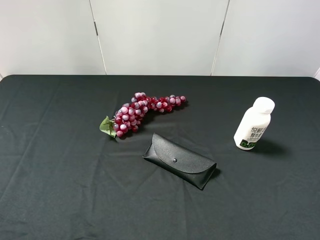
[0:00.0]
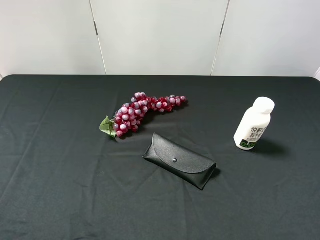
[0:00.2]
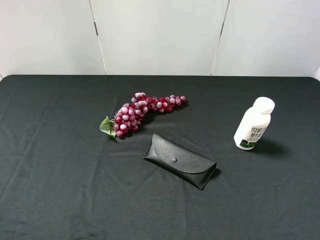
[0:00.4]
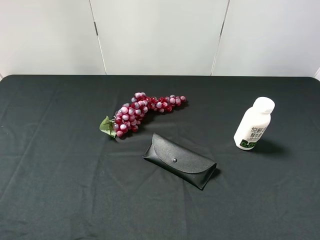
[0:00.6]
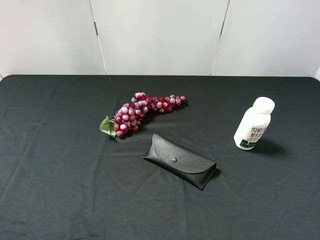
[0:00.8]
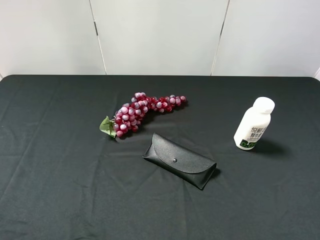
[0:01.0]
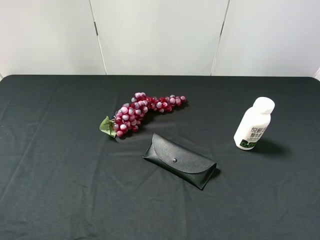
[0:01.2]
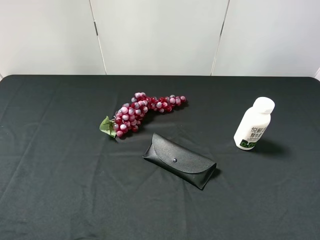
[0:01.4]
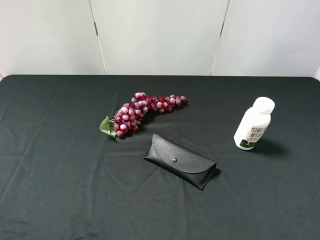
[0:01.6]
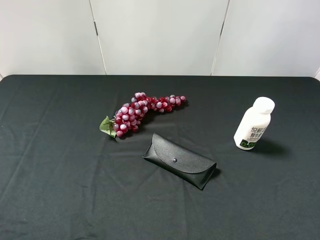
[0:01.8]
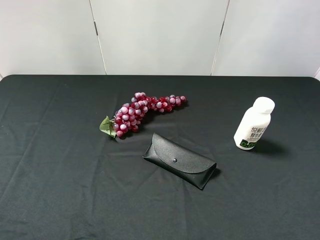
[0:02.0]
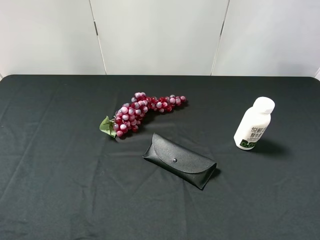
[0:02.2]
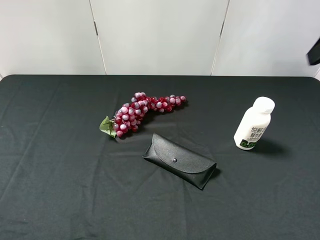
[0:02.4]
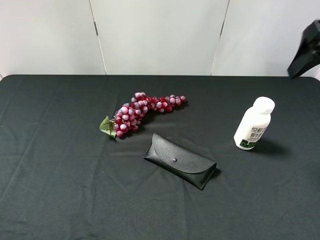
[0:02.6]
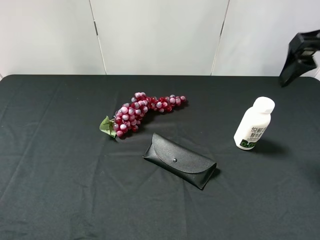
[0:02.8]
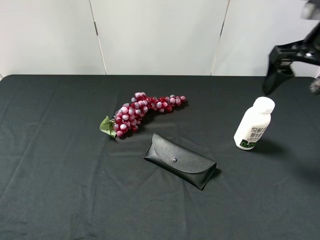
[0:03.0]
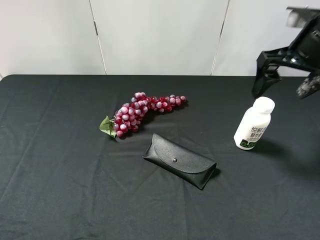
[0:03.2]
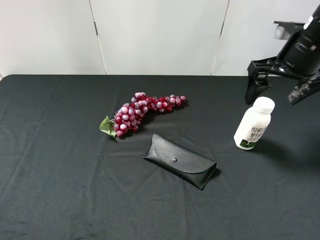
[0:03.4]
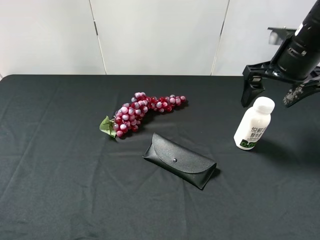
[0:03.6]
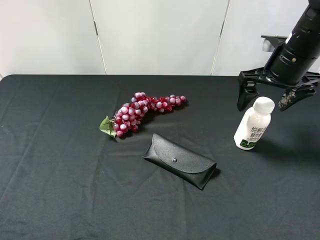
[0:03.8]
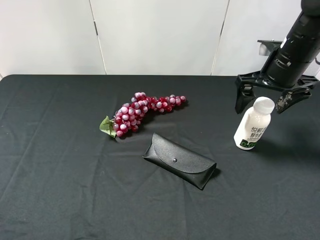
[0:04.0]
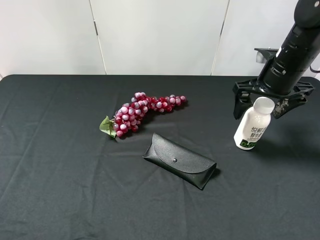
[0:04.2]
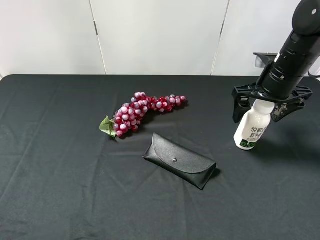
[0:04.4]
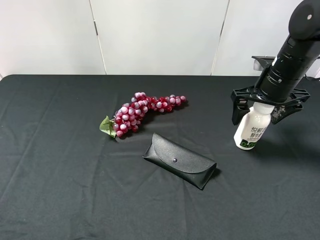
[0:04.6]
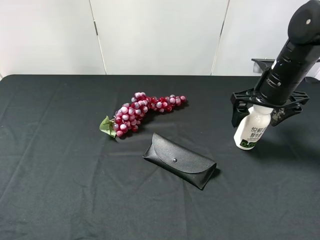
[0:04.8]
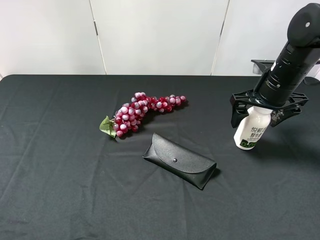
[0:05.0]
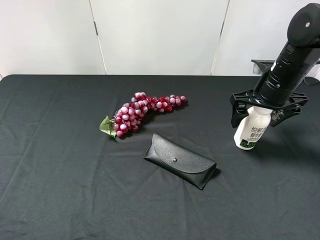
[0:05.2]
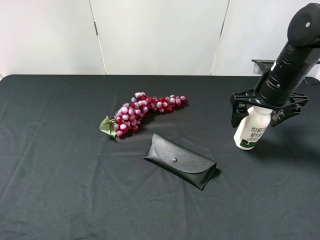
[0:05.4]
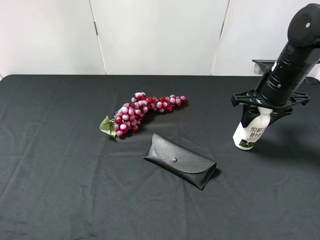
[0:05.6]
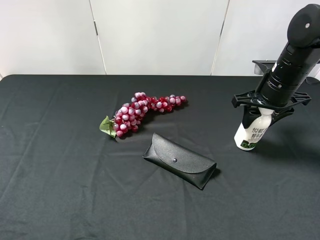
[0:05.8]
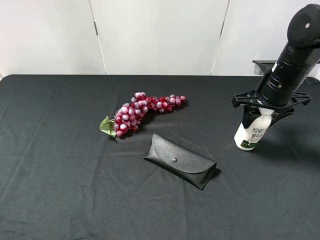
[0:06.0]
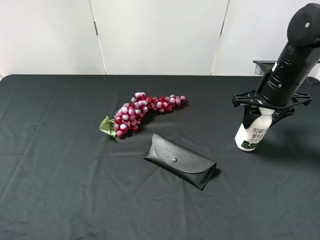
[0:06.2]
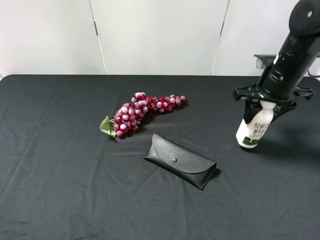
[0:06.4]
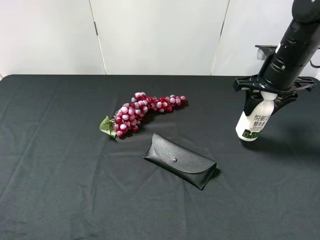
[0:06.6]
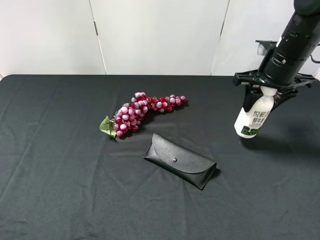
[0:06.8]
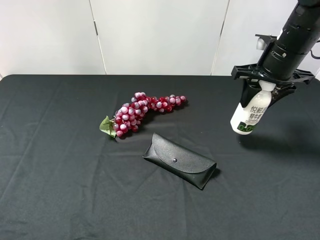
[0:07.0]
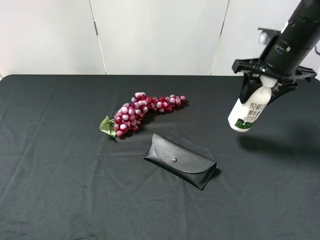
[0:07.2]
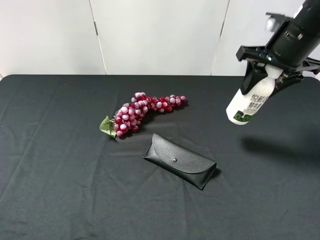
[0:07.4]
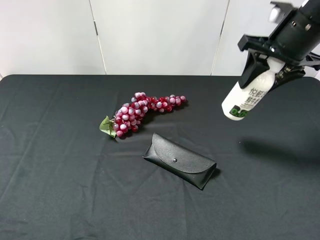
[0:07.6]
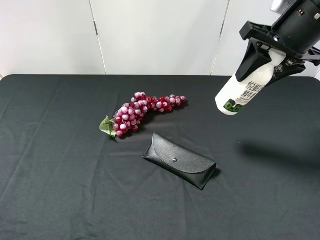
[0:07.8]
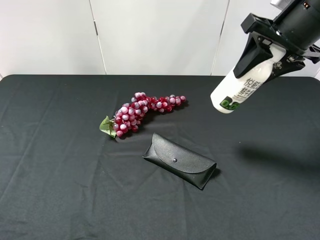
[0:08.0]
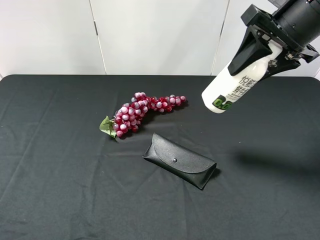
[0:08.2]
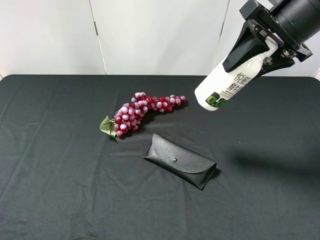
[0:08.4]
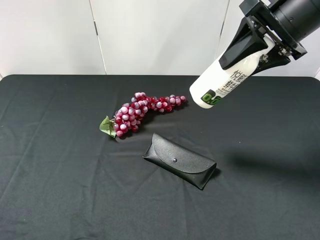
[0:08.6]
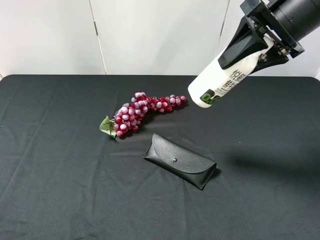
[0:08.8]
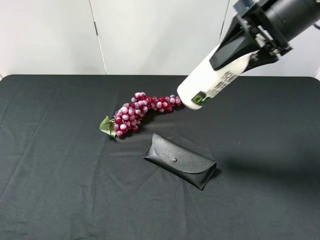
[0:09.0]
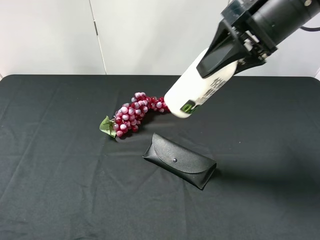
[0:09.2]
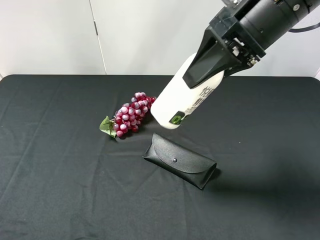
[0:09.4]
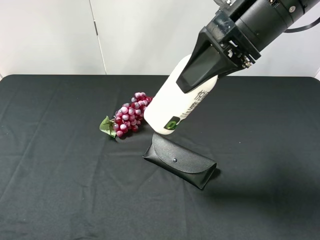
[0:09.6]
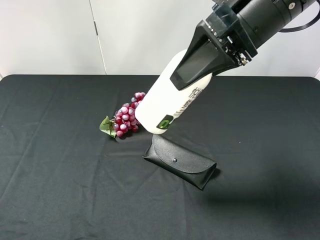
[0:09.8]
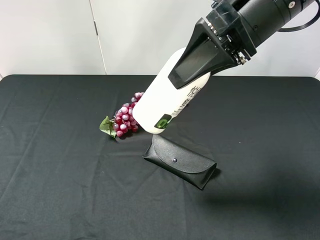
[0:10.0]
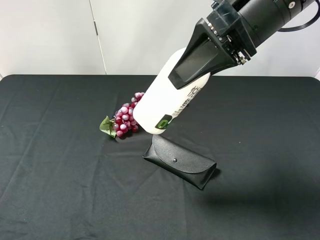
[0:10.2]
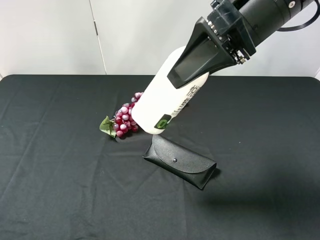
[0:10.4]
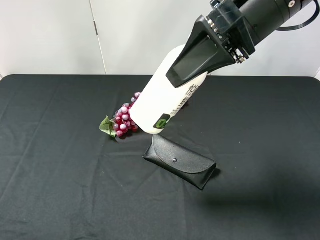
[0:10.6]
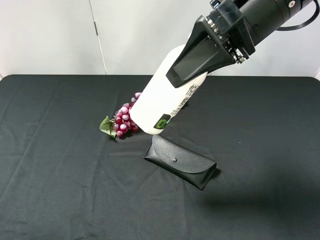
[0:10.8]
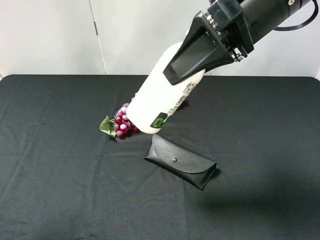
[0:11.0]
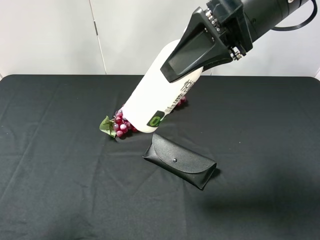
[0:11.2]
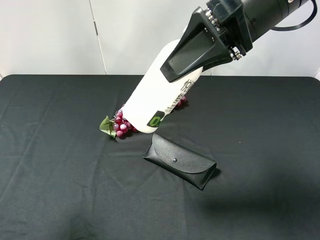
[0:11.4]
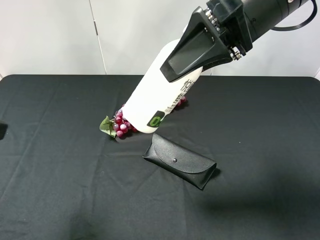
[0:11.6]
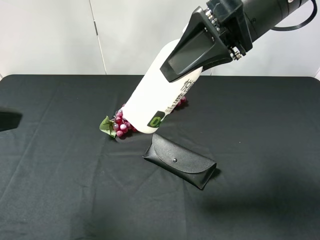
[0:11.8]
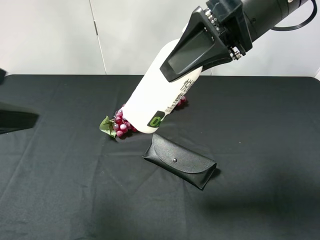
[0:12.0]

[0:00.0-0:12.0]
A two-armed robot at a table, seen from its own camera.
Task of the whole recording: use the right gripper to pick up the item and transfer it from the right gripper to the left gripper.
Step, 0:00.0 to 0:05.6: Use the right gripper to grab the milk on the right side of the table.
0:01.6 to 0:03.0: The right gripper moves forward, roughly 25 cm.
0:03.0 to 0:04.4: The right gripper moves downward, about 10 cm.
0:04.4 to 0:06.0: The right gripper closes its fingers.
0:06.0 to 0:07.6: The right gripper is displaced upward by roughly 10 cm.
0:07.6 to 0:09.0: The right gripper moves roughly 5 cm.
0:09.0 to 0:10.4: The right gripper goes about 5 cm to the left.
0:10.4 to 0:12.0: The left gripper moves forward and to the right, some 15 cm.

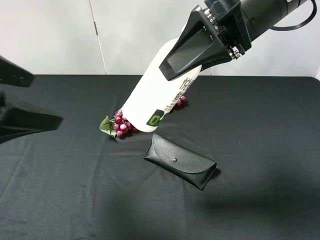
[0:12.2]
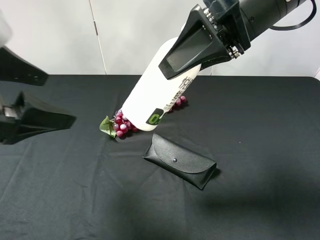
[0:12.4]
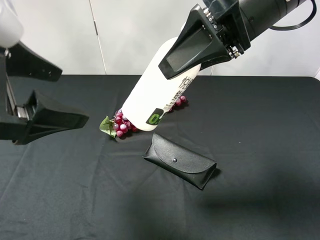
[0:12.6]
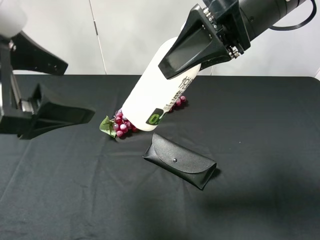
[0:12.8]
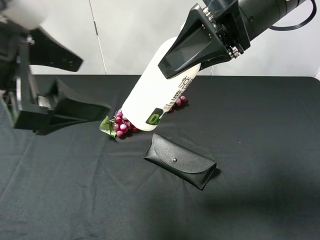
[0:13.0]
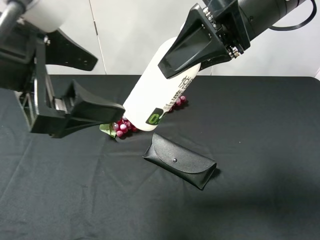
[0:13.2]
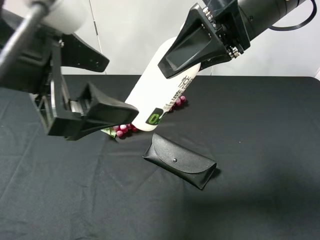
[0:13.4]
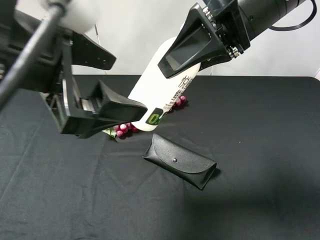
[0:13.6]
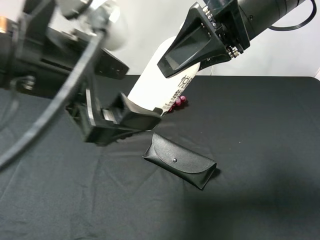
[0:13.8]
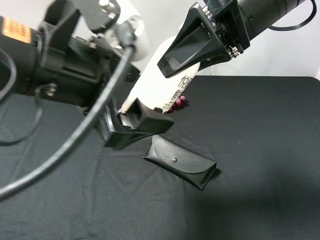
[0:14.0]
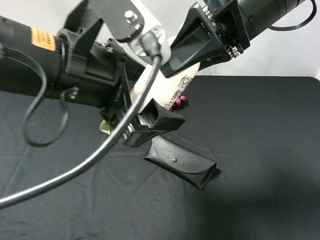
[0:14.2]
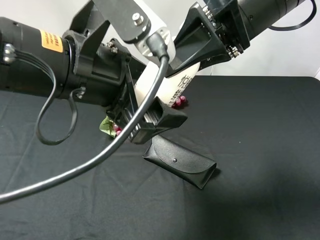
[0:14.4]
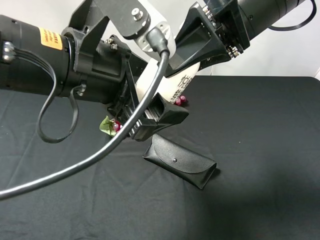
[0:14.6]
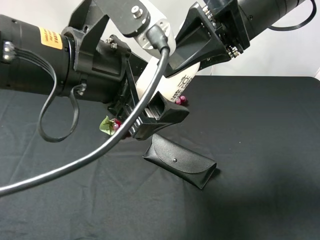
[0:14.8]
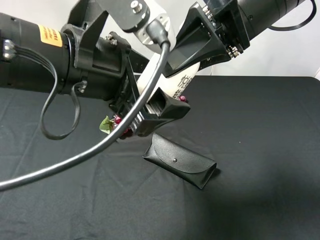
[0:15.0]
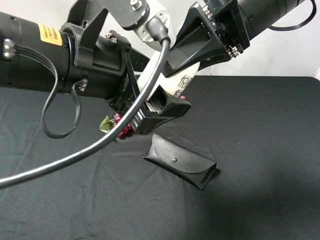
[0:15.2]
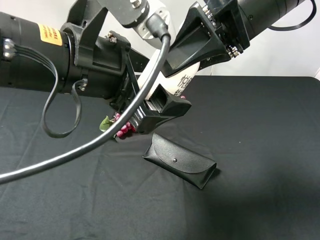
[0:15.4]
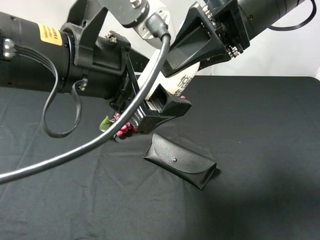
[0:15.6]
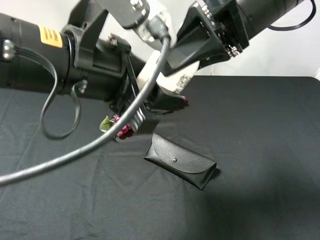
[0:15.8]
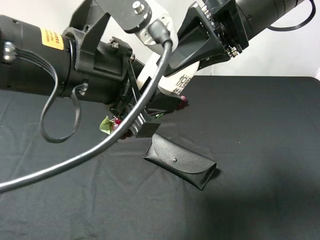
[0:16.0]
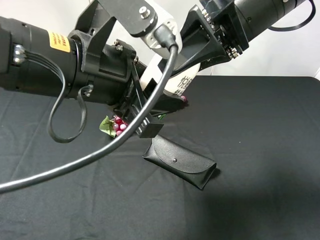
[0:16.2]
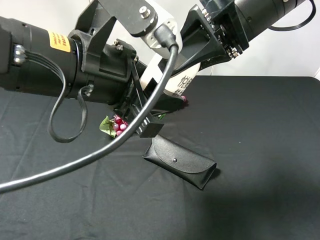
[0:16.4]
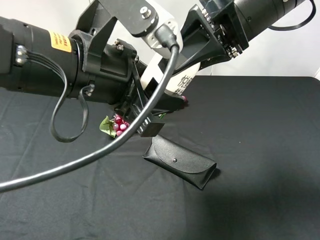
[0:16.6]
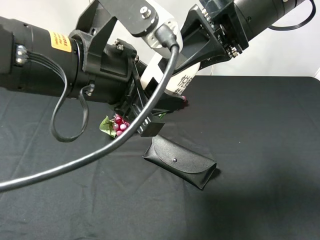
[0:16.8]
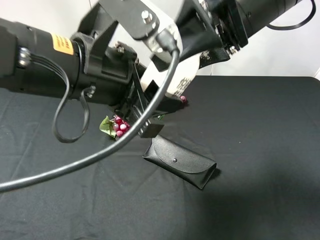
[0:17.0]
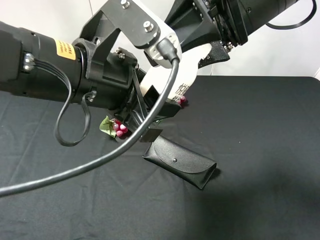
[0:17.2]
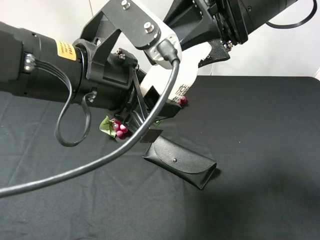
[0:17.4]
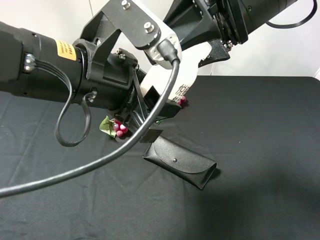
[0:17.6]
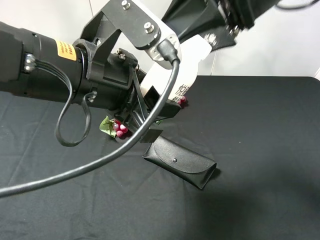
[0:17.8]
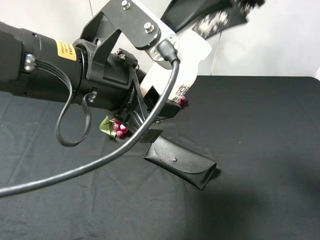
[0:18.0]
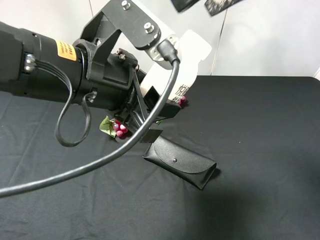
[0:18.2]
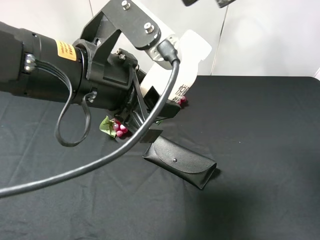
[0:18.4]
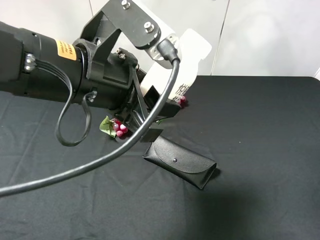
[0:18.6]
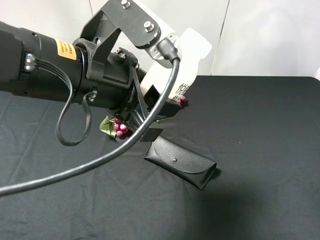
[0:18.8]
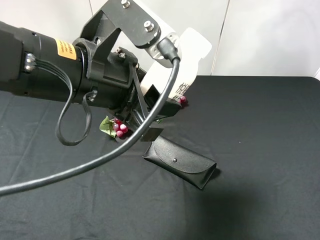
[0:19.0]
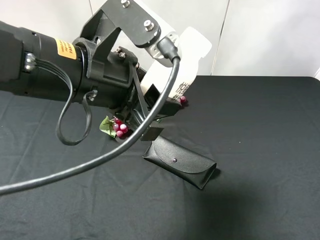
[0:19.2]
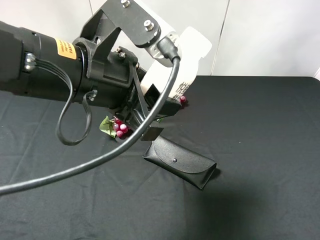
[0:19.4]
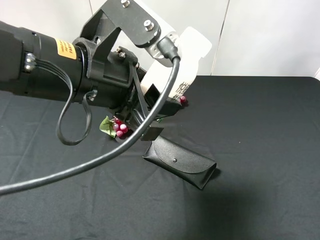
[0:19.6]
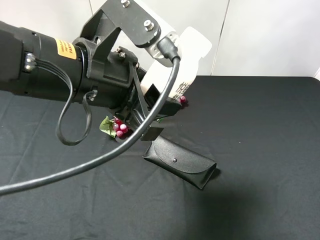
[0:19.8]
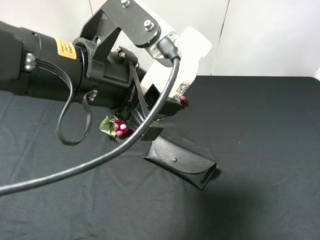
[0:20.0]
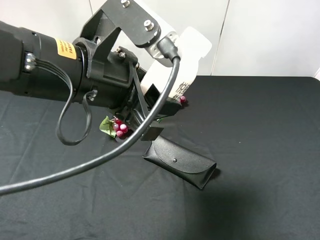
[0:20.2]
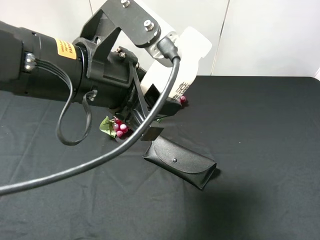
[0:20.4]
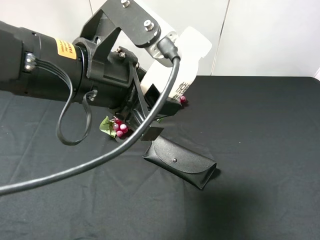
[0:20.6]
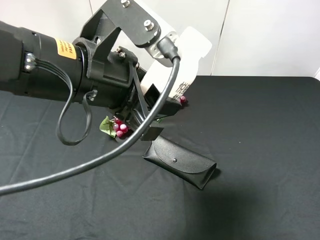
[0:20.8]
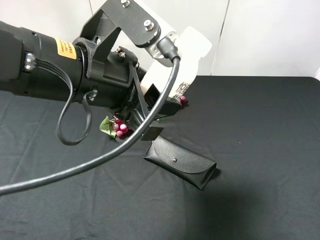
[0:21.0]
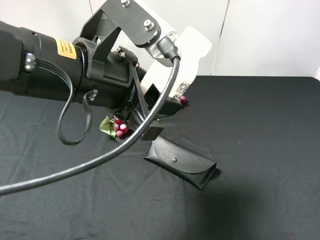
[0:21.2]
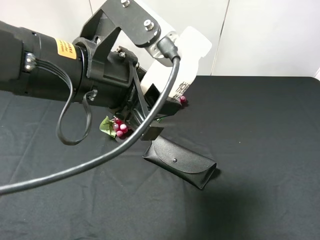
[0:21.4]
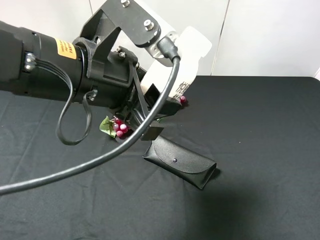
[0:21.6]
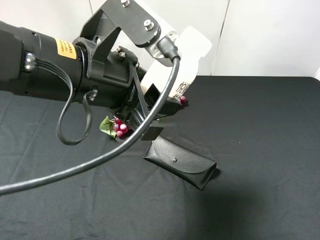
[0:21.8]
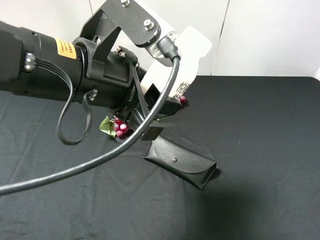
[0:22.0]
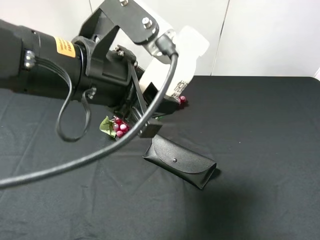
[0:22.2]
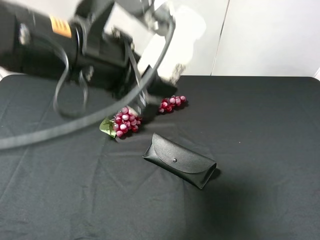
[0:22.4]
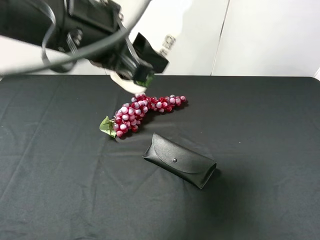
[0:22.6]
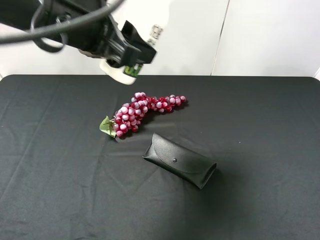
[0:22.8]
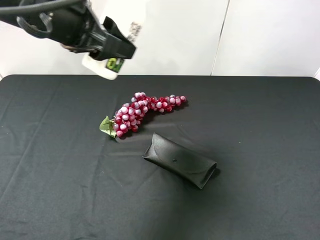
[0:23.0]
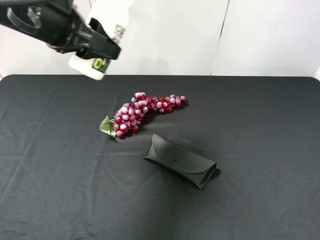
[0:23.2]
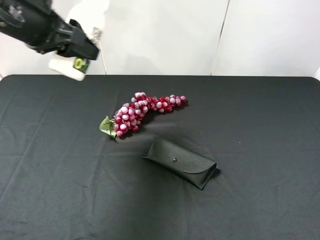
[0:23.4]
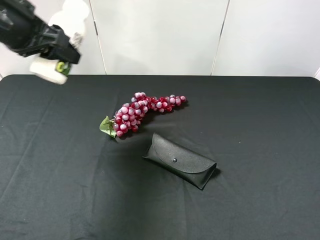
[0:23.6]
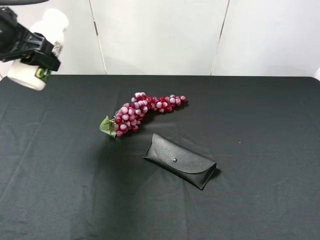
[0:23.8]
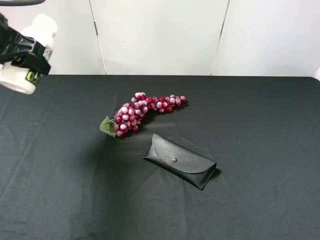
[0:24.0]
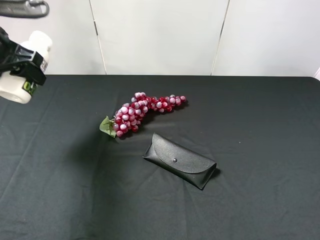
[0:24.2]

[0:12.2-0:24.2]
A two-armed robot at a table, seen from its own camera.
Task of the whole recording: use the right gripper to pick up the item and transfer it from the right gripper to the left gripper.
Step, 0:12.2 to 0:17.2: Pass the milk to the left gripper.
0:12.2 to 0:13.8: The left gripper goes roughly 10 cm to the right.
0:15.2 to 0:16.6: The left gripper closes its fingers.
0:16.6 to 0:18.2: The right gripper is displaced upward by roughly 10 cm, and opens its fingers.
0:18.2 to 0:19.8: The right gripper goes roughly 25 cm backward and to the right.
0:21.2 to 0:22.6: The left gripper changes place by about 5 cm.
0:22.6 to 0:24.2: The left gripper goes approximately 20 cm to the left and forward.
